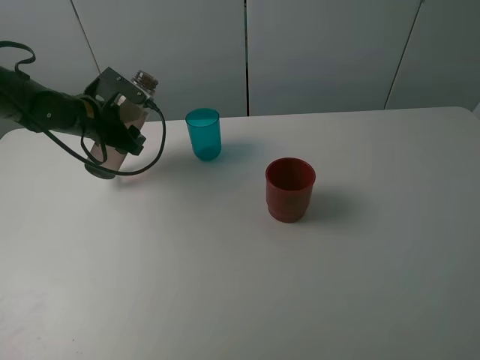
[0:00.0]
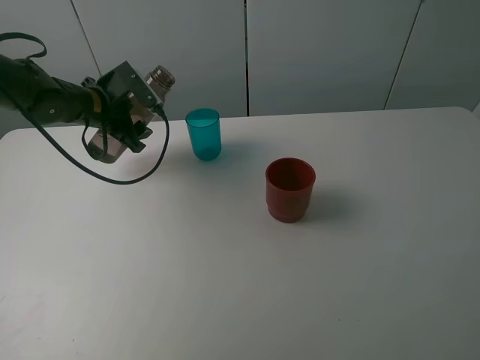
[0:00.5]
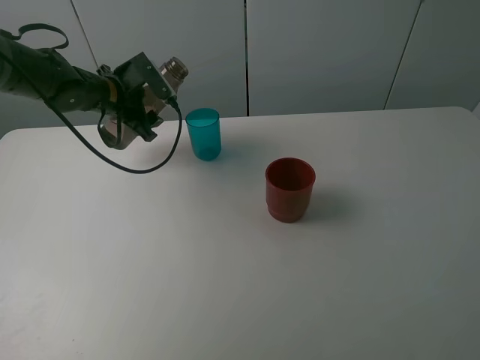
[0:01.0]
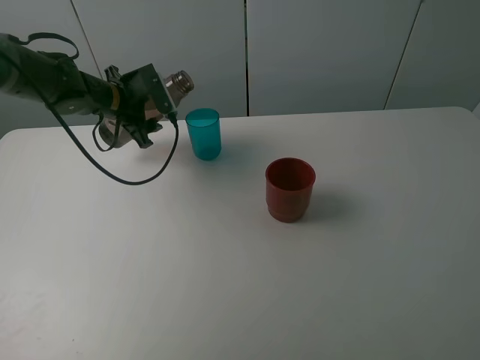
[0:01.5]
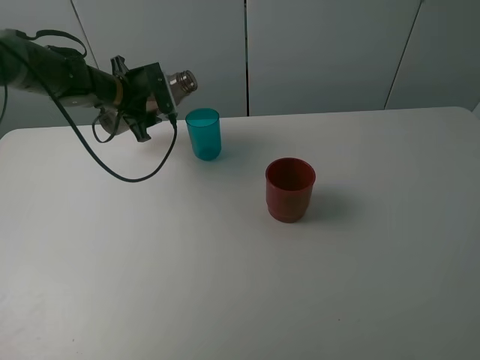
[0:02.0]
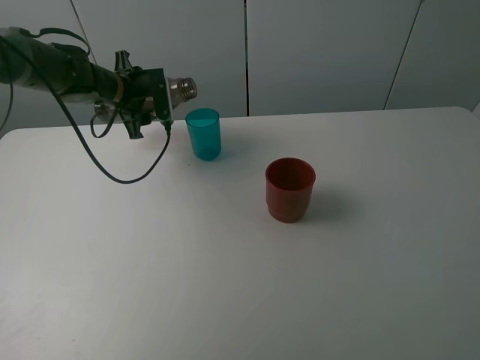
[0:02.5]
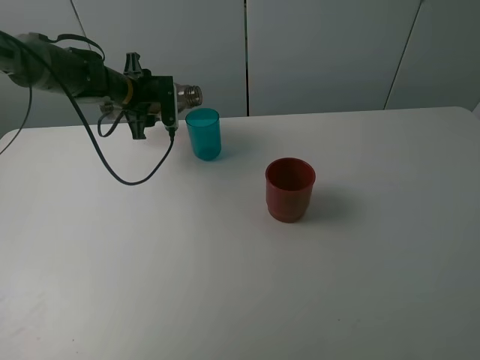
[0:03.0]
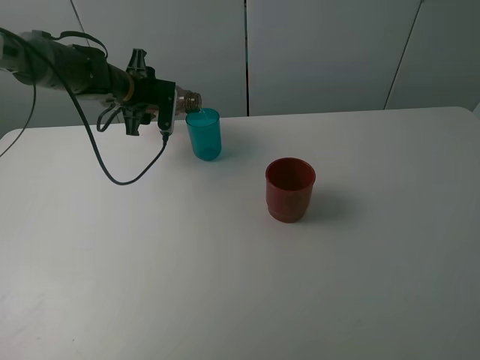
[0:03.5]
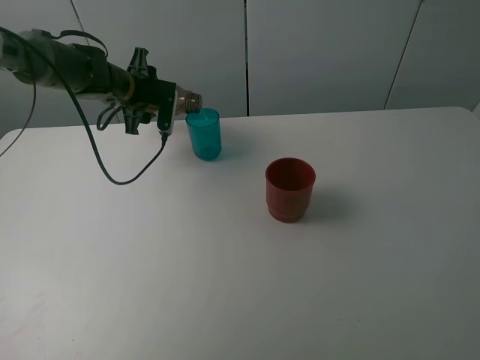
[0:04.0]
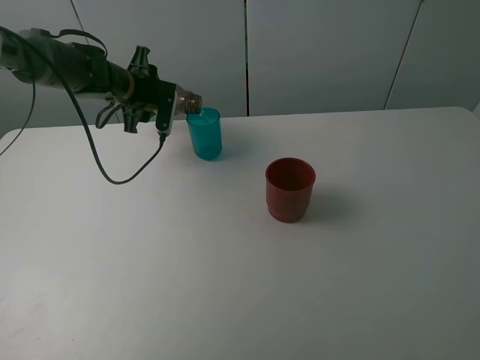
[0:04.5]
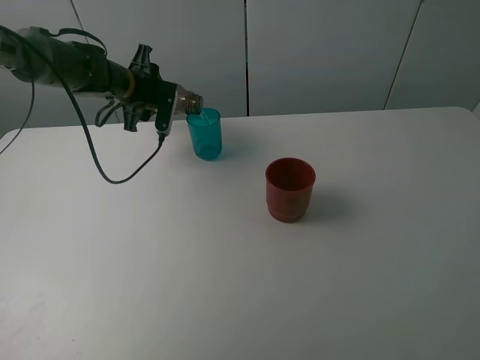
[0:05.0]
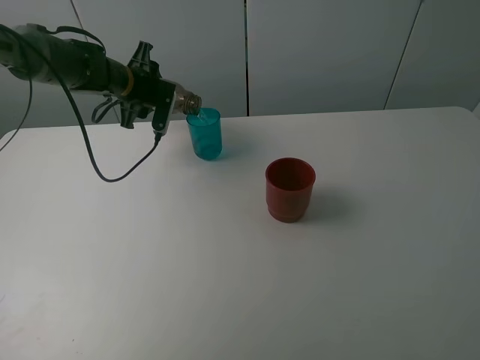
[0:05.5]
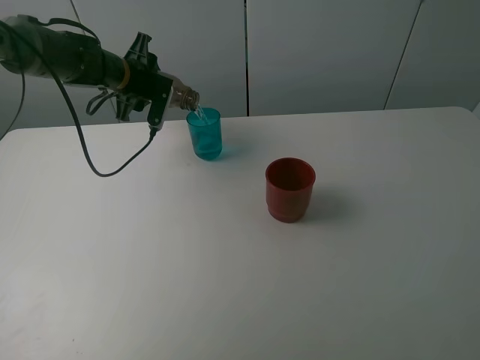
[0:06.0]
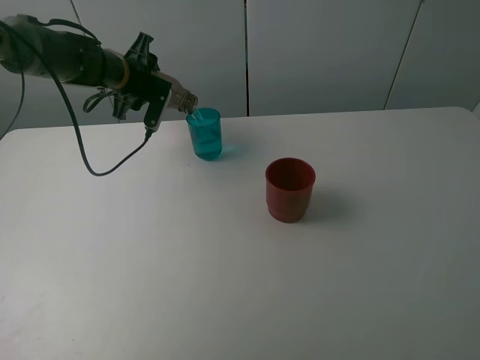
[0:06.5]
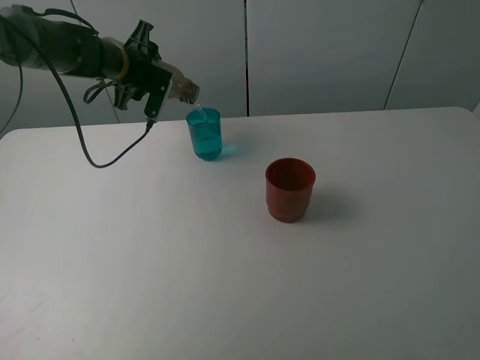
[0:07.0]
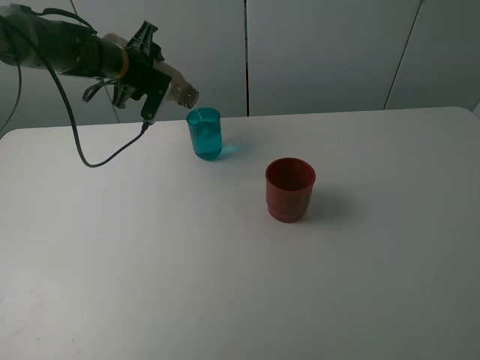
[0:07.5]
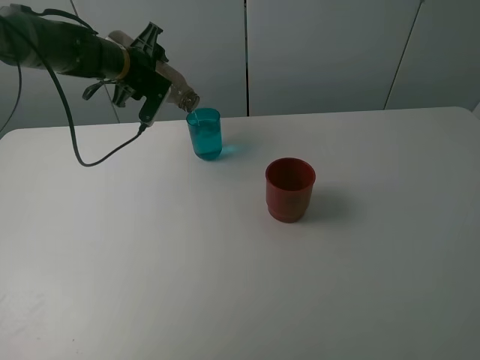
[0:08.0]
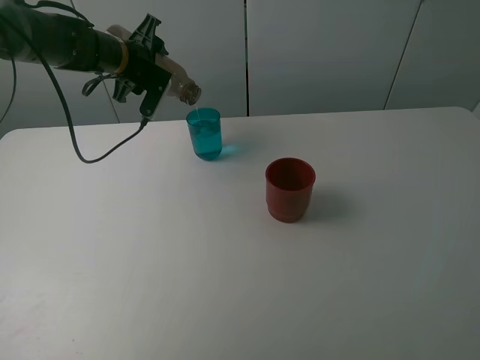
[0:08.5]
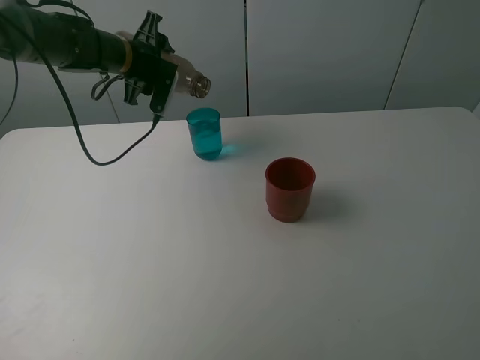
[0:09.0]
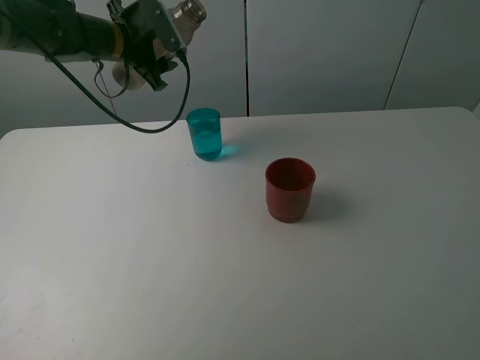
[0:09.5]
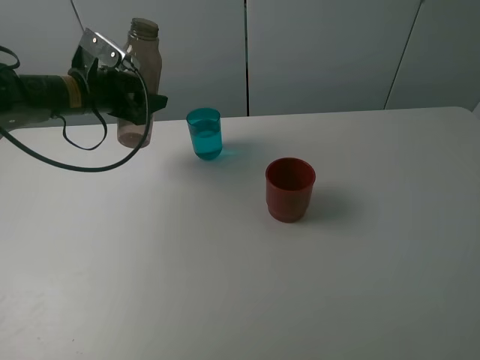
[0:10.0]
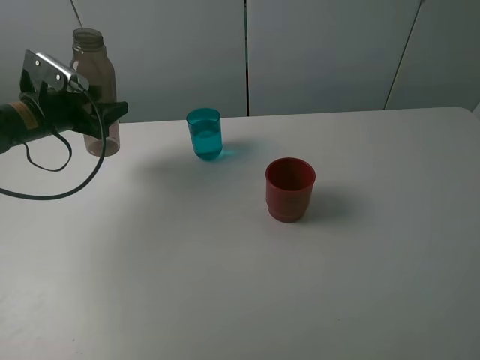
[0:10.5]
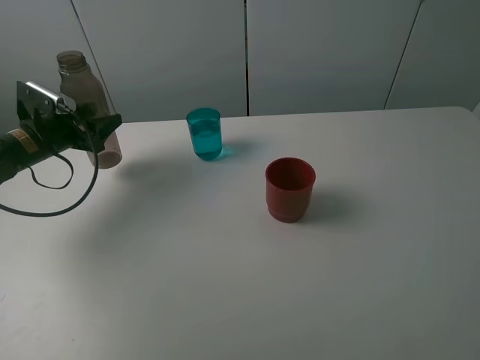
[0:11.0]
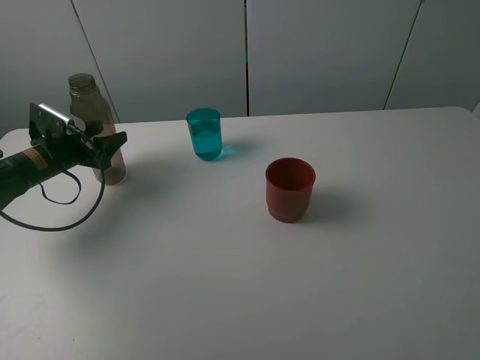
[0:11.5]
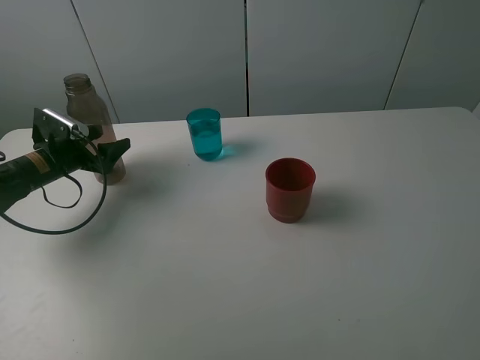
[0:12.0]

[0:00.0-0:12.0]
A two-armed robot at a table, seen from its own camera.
Task of the whole recording: pick up the bottle and pour water into the cup, then pick up the cup containing water and pour it into another cup.
0:00.0 to 0:02.0: The left gripper moves forward, roughly 5 cm.
0:04.0 to 0:06.0: The grippers move only a little.
0:06.0 to 0:08.0: The grippers make only small movements.
0:08.0 to 0:10.0: The left gripper heads backward and to the left, covering about 10 cm.
0:10.0 to 0:12.0: The left gripper goes approximately 15 cm downward and to the left, and opens its fingers.

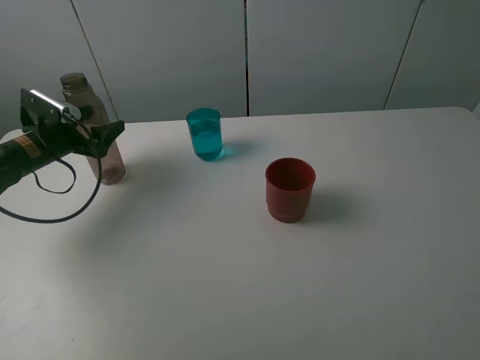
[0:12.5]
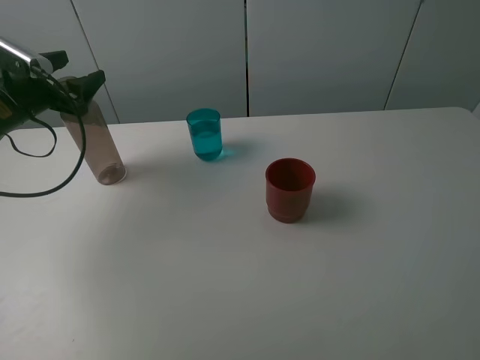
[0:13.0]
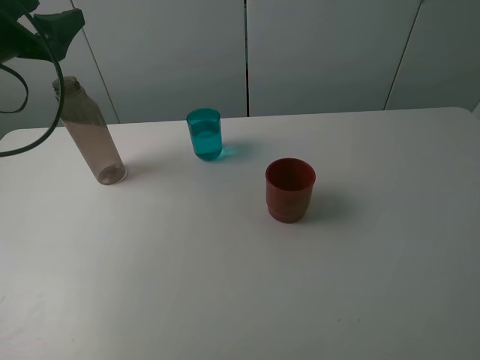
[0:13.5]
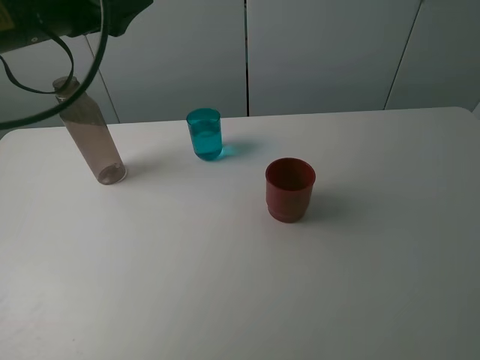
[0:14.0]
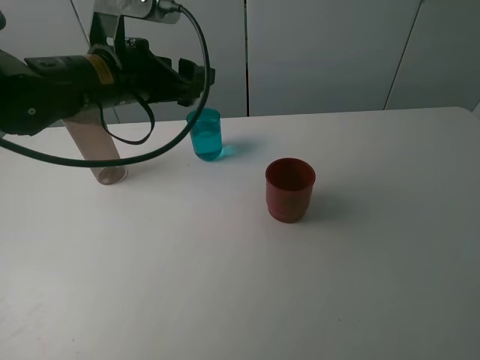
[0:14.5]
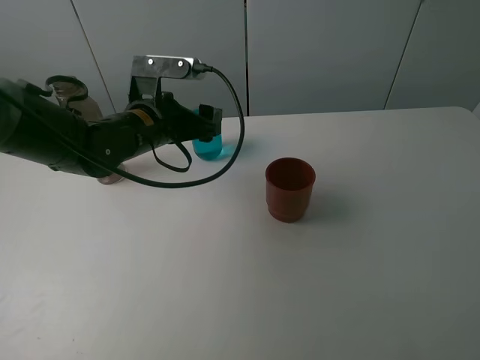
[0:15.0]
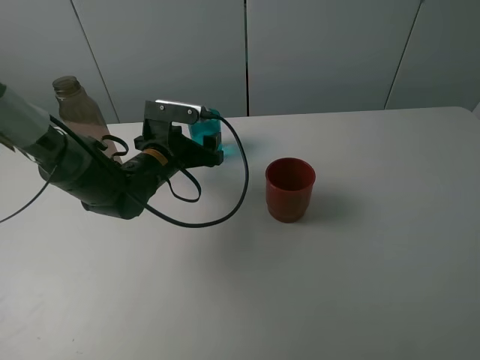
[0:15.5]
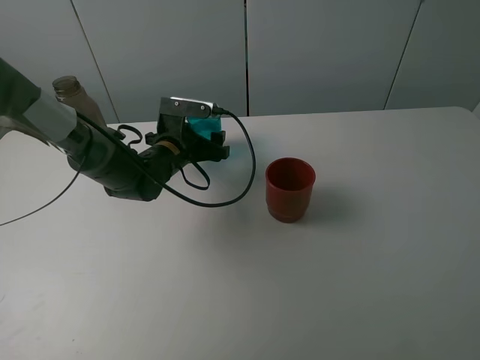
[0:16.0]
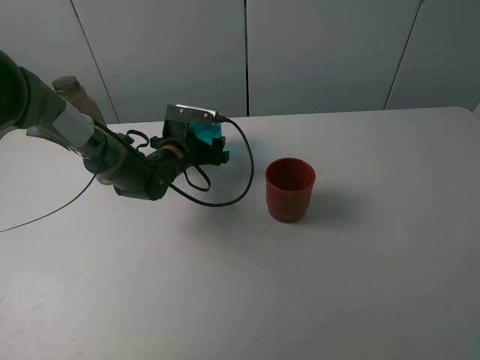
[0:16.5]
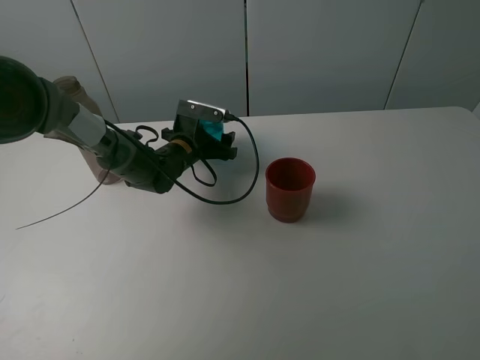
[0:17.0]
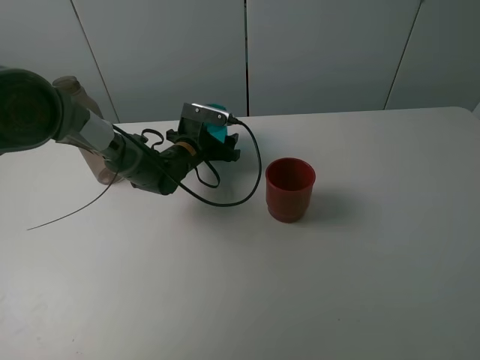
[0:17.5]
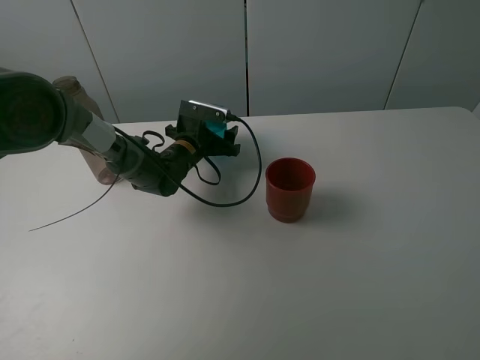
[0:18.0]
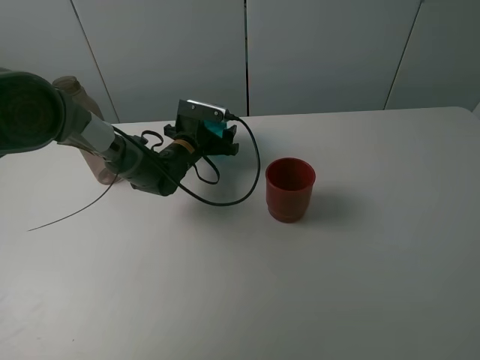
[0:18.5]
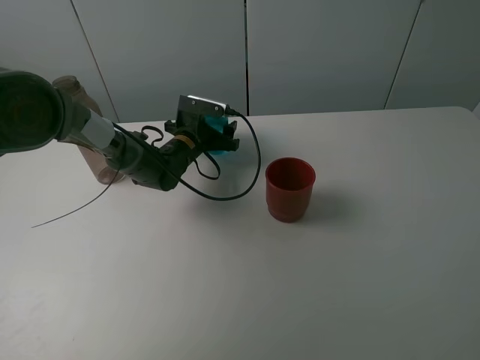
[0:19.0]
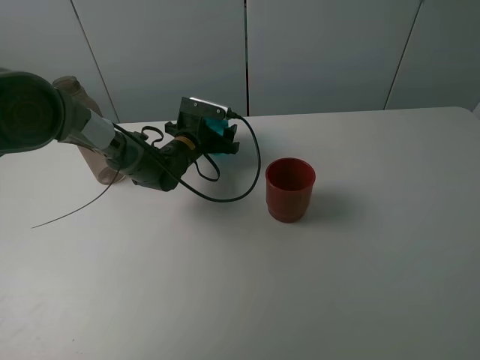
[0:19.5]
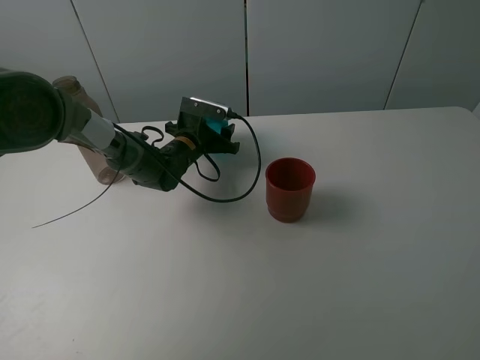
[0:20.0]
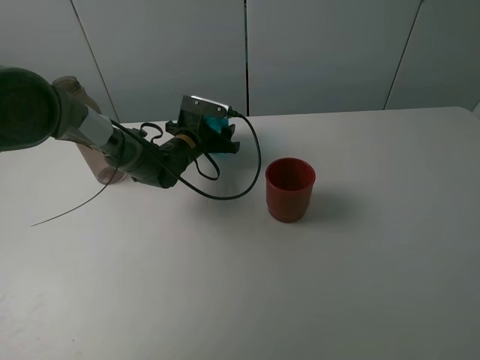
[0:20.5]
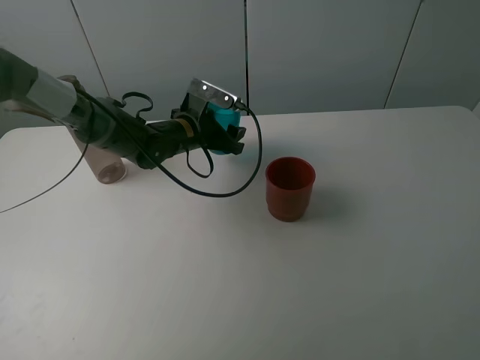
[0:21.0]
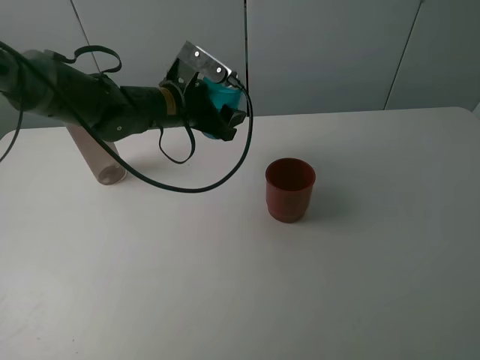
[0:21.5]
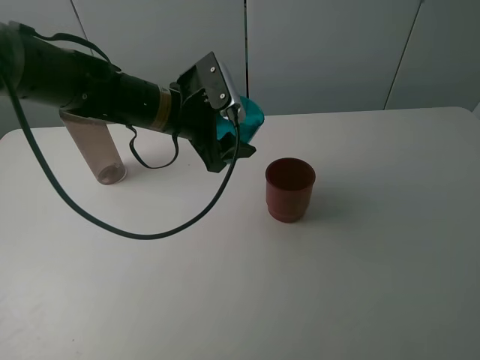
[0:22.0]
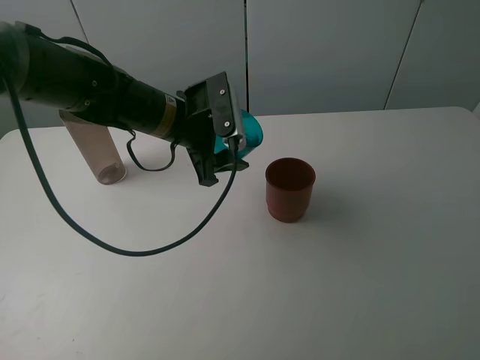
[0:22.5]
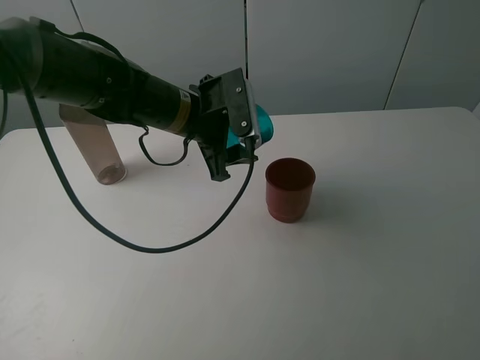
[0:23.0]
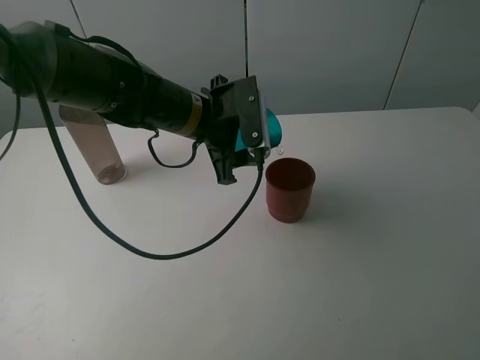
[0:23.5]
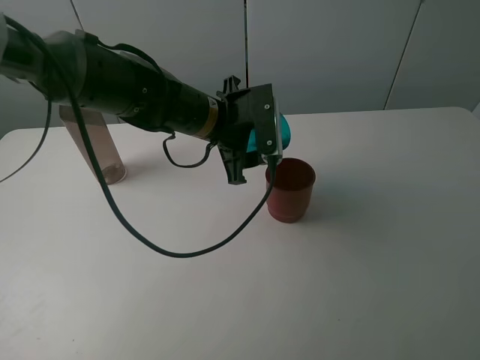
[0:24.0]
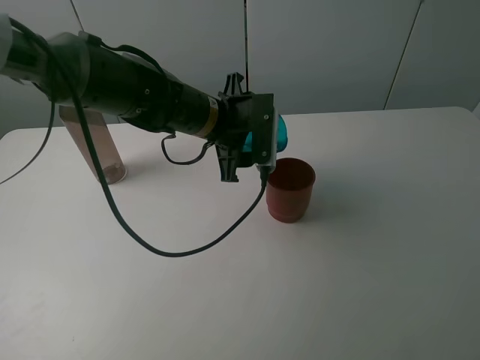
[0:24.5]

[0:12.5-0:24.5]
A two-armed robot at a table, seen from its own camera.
Task of the whole recording: pick up the bottle and pour water into the cup, then pick up the cup containing water and pour it into another cup.
0:12.5 to 0:14.5: The left gripper heads to the right and upward, covering roughly 25 cm.
0:14.5 to 0:16.5: The left gripper moves downward and forward, approximately 20 cm.
0:16.5 to 0:18.5: The grippers make only small movements.
0:18.5 to 0:20.5: The left gripper closes its fingers.
0:20.5 to 0:22.5: The left gripper moves upward and backward, approximately 15 cm.

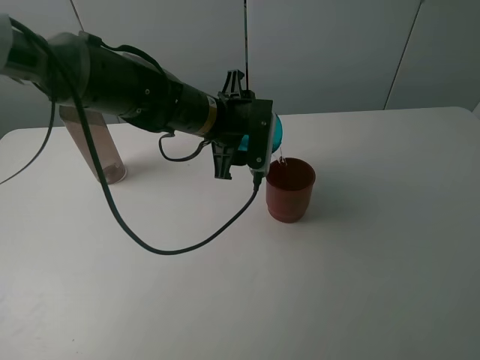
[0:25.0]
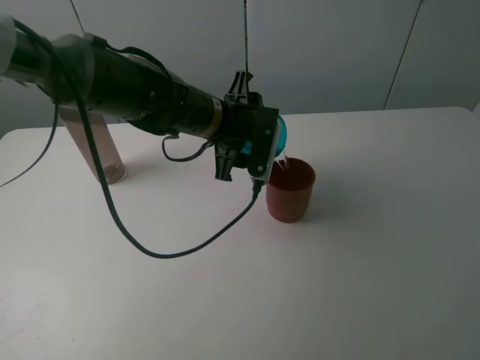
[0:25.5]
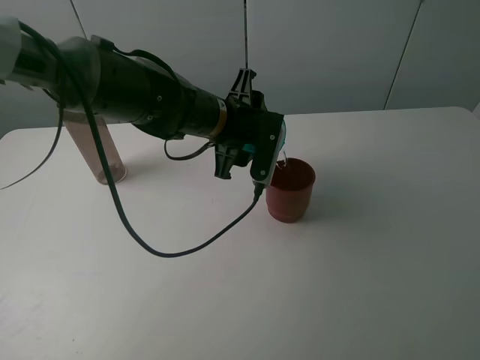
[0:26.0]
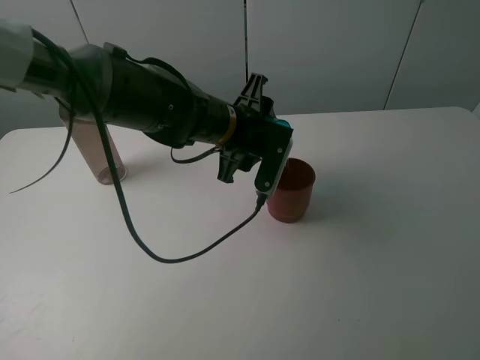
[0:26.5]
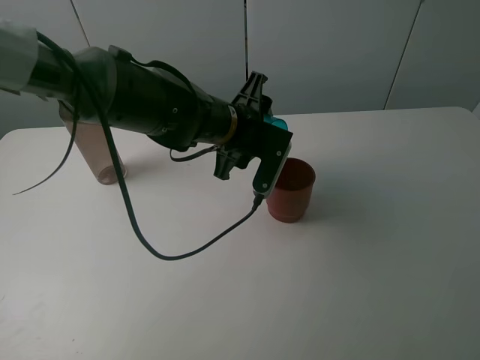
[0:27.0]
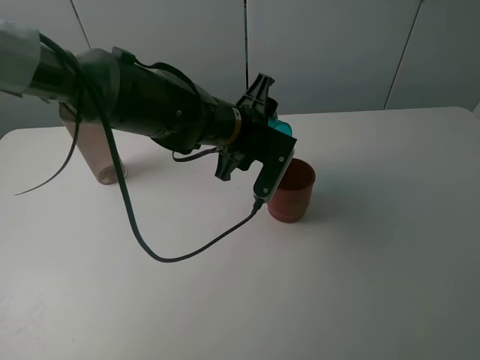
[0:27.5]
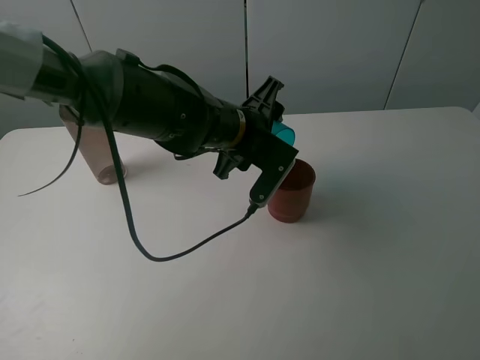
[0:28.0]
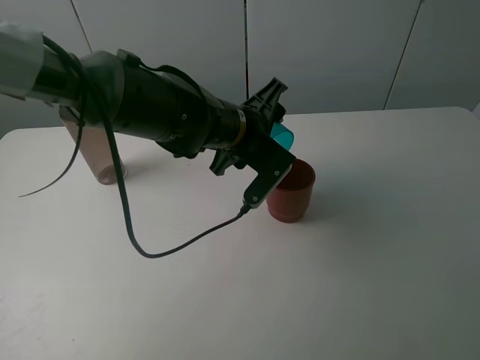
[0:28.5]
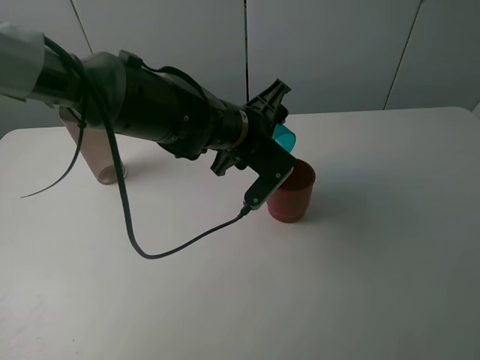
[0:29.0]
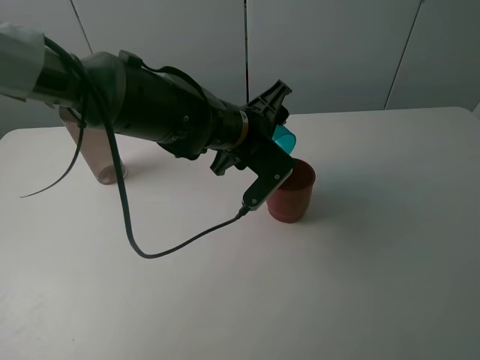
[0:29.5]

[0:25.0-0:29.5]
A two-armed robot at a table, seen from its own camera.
Task of the whole recording: pick up the bottle and pour water into the cup, then pick up the cup containing water and pour it into another cup.
0:27.0 to 0:29.5: The grippers make only small movements.
